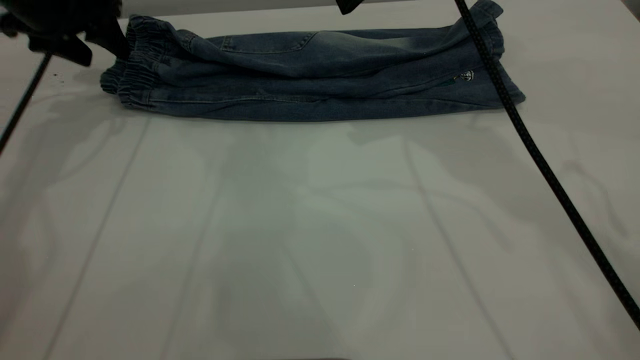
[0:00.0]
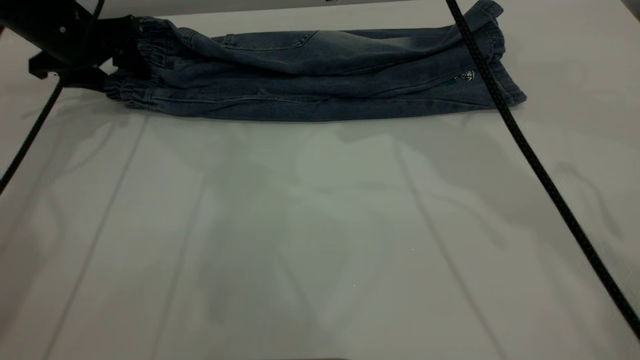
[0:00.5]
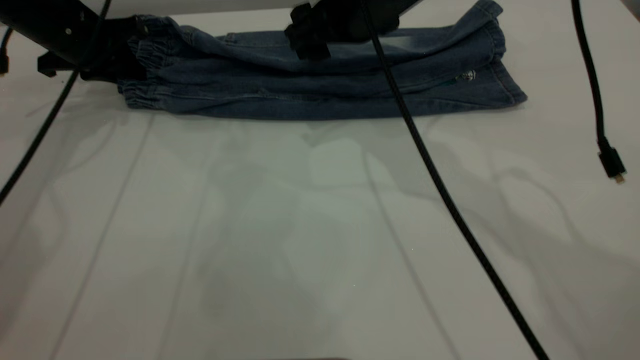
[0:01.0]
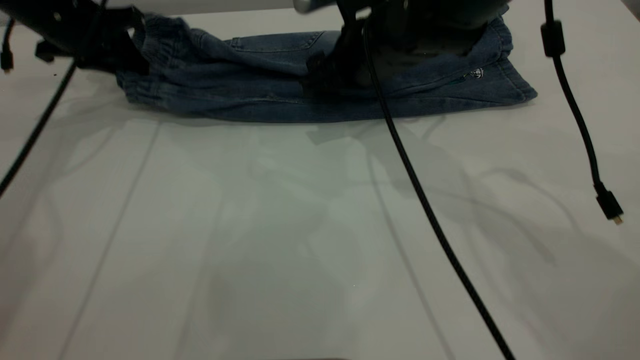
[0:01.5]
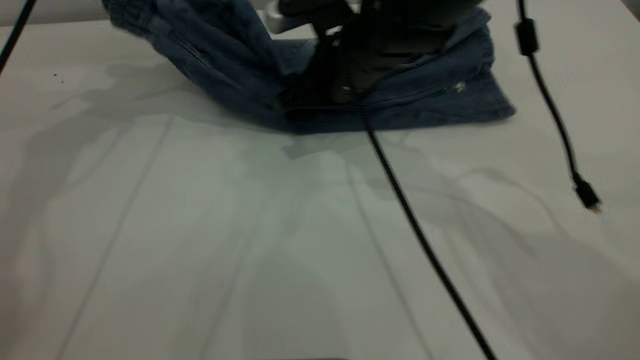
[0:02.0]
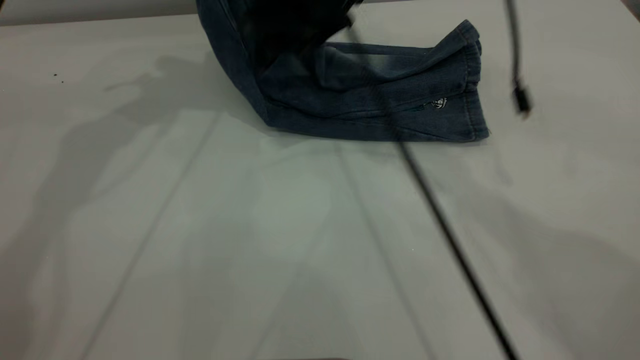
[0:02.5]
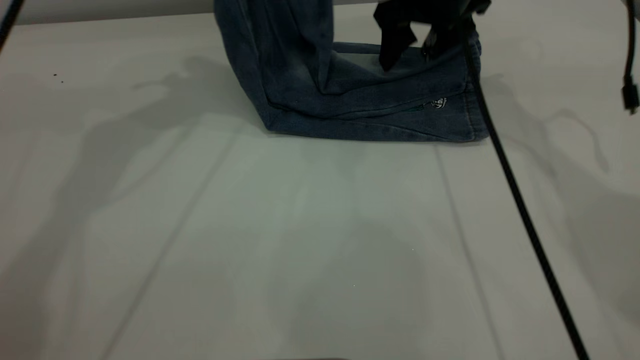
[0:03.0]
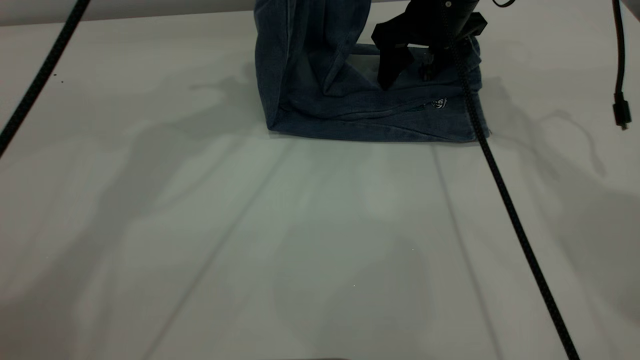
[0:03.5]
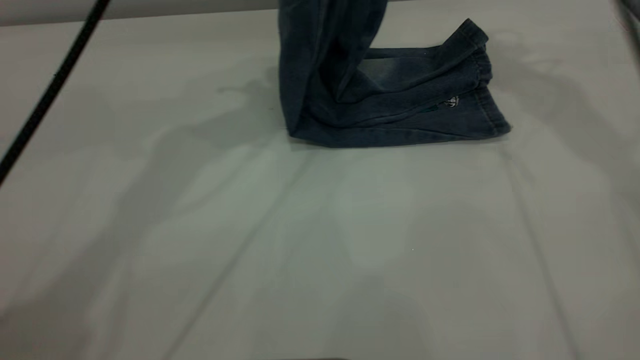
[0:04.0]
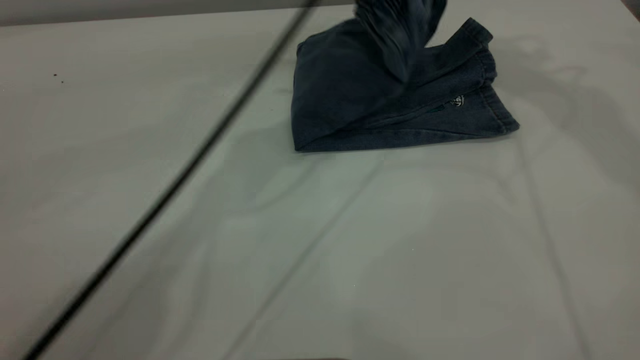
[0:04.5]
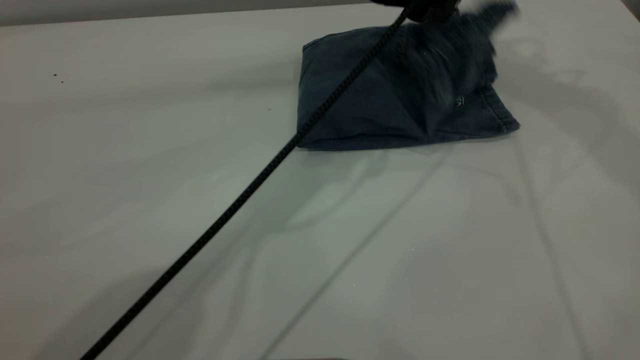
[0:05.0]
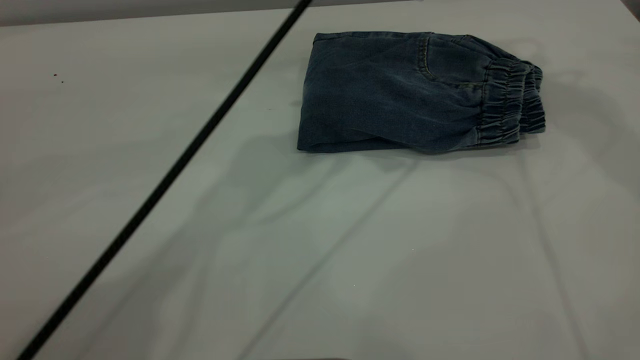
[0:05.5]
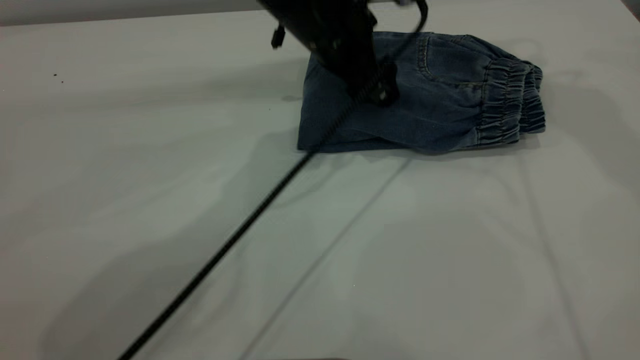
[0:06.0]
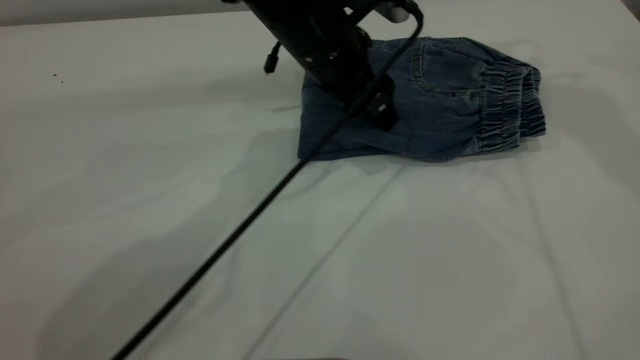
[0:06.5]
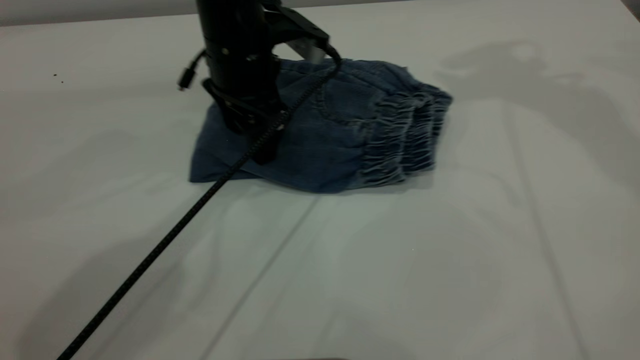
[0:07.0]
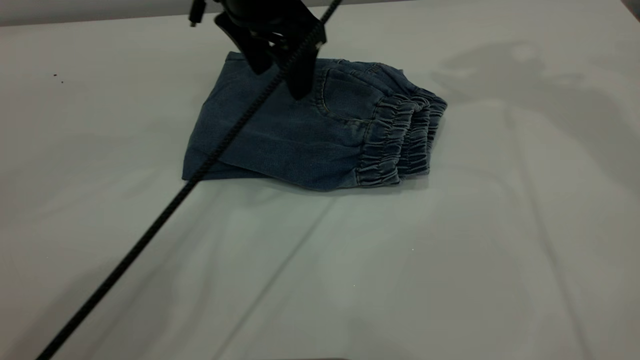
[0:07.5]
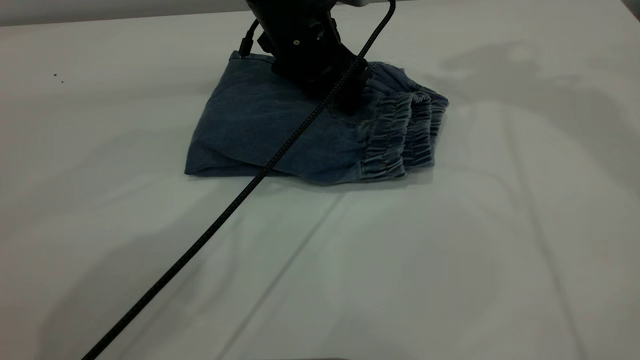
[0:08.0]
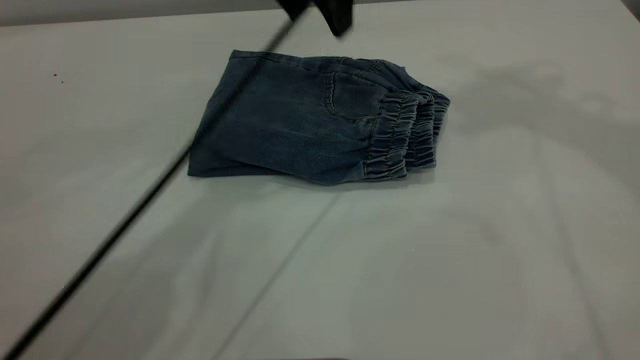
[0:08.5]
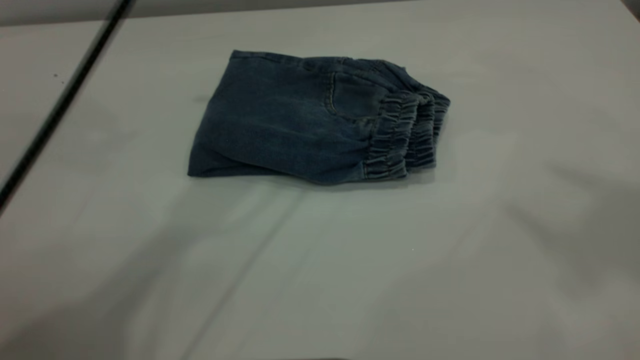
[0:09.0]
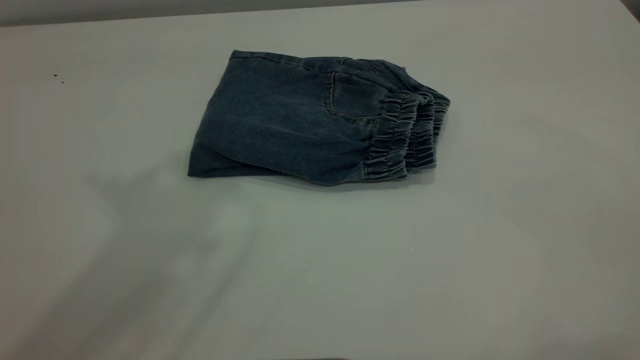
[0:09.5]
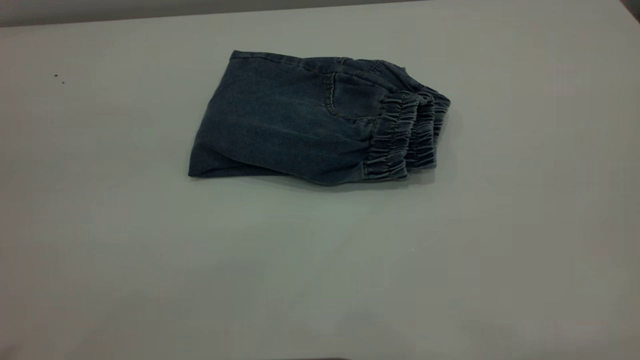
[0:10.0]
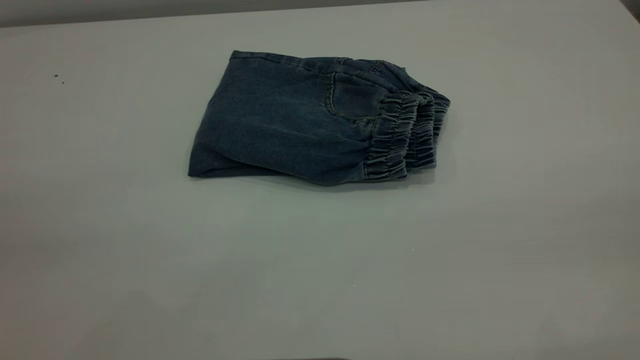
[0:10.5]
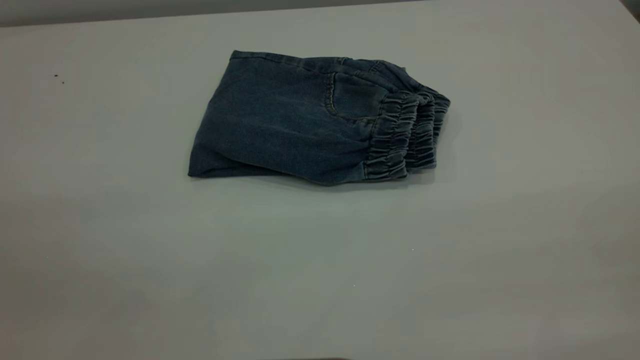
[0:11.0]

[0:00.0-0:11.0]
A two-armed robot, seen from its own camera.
Step, 0:00.0 to 0:05.0: Fold the pants from left to right.
0:00.0 to 0:02.0: The right gripper shifts some 15 cm downward and to the left; the left gripper goes about 10 cm upward, and closes its fingers.
0:02.0 to 0:03.5: The right gripper moves to the right and forward, some 15 cm; the left gripper goes about 15 cm to the right and upward.
0:03.5 to 0:05.5: The left gripper moves to the right and downward, some 15 cm, and opens up. The right gripper shifts approximately 25 cm upward.
0:07.5 to 0:09.0: The right gripper heads backward and upward, covering about 35 cm; the left gripper travels upward by about 20 cm.
0:09.0 to 0:11.0: The left gripper moves backward and to the left, approximately 40 cm.
